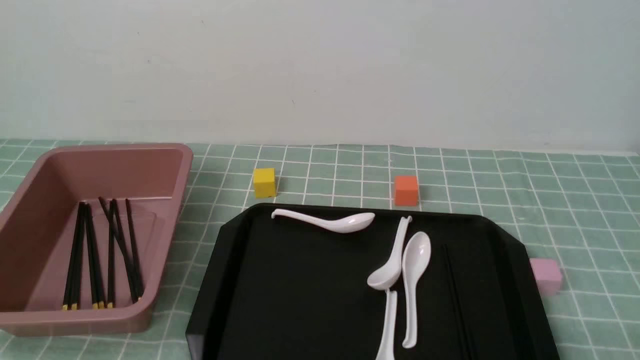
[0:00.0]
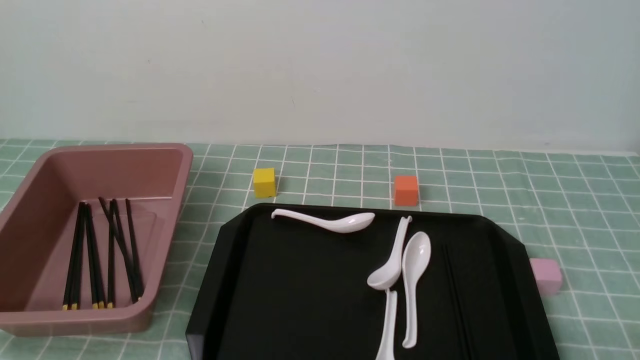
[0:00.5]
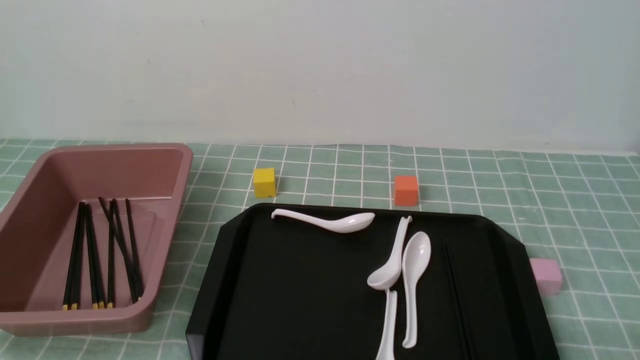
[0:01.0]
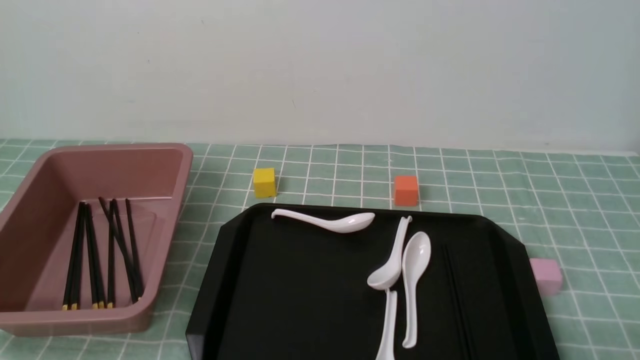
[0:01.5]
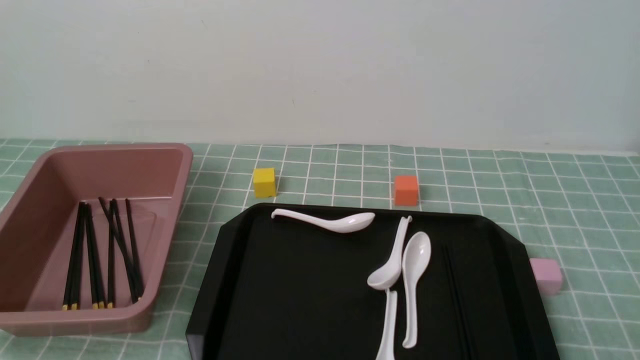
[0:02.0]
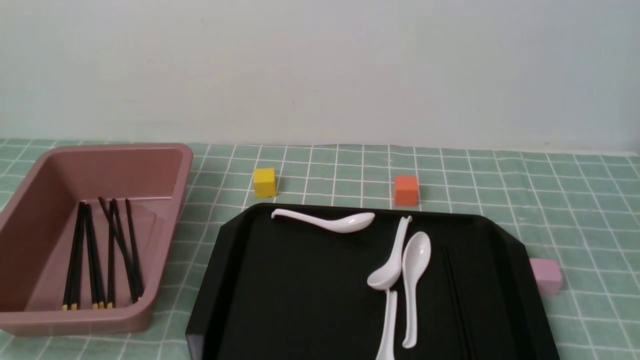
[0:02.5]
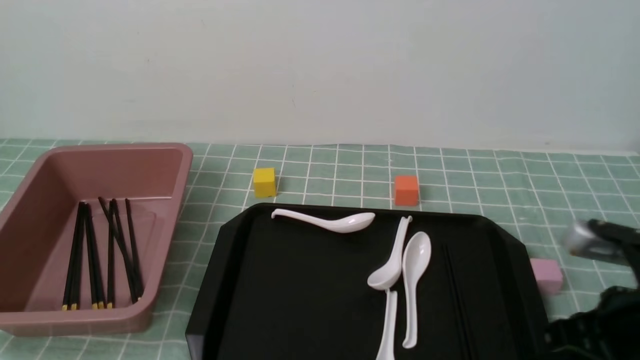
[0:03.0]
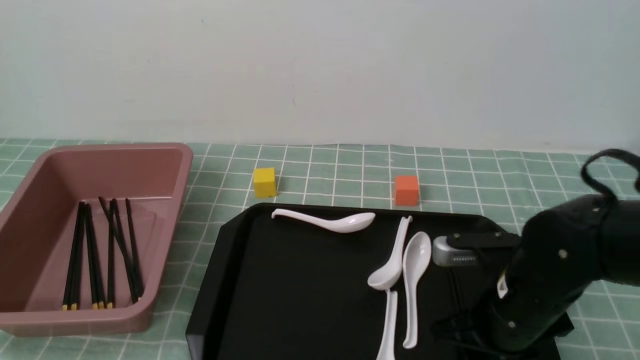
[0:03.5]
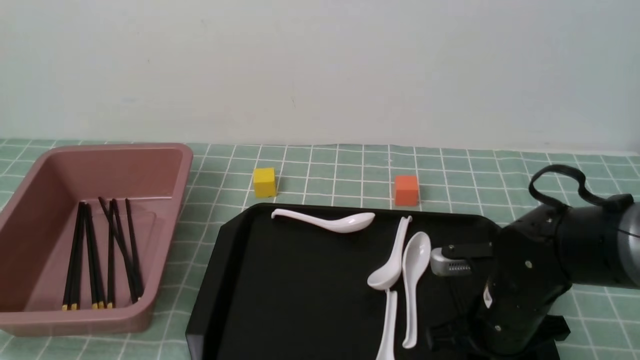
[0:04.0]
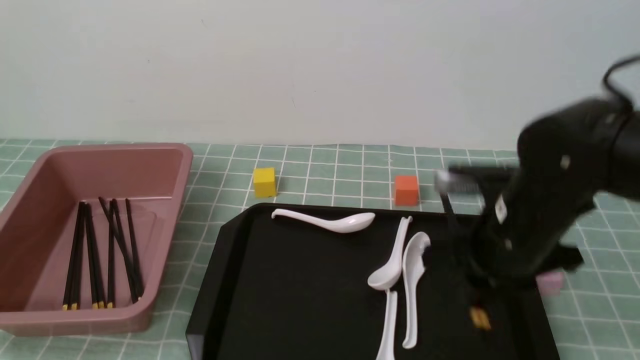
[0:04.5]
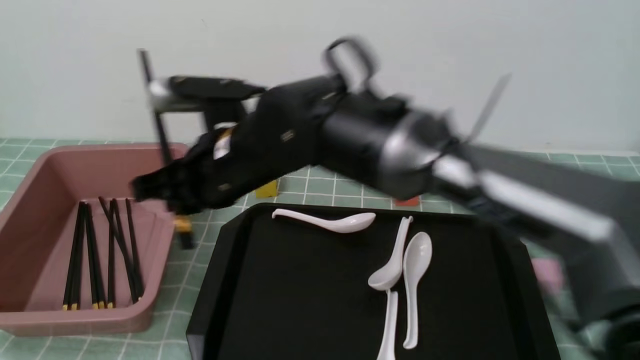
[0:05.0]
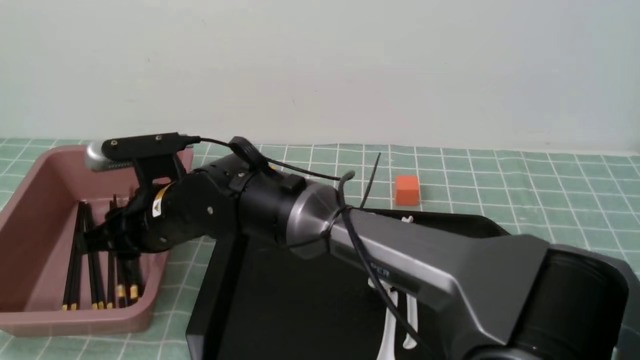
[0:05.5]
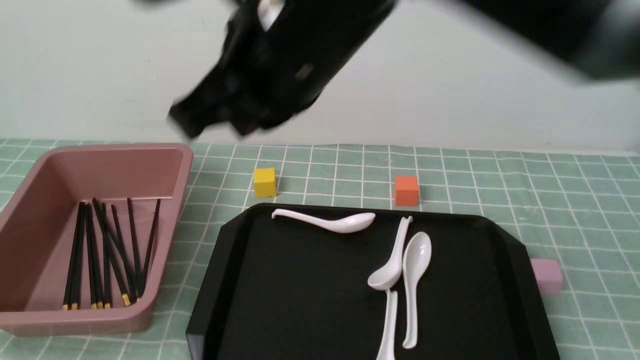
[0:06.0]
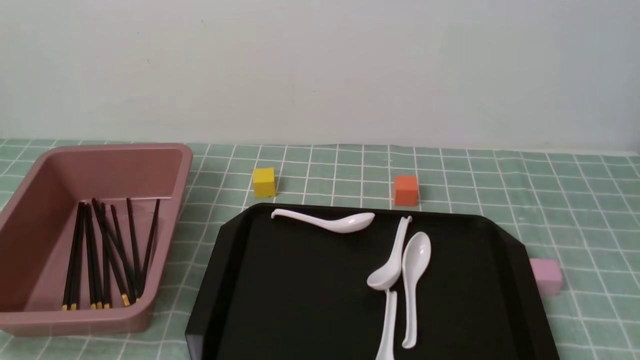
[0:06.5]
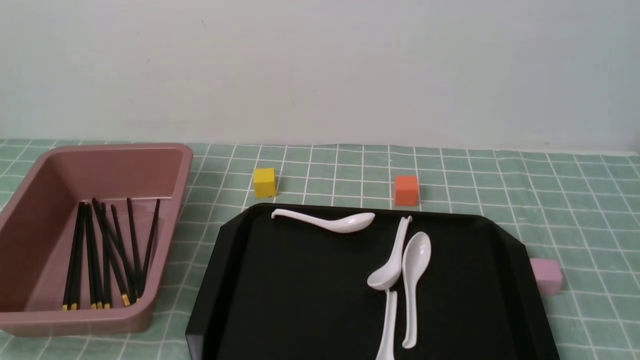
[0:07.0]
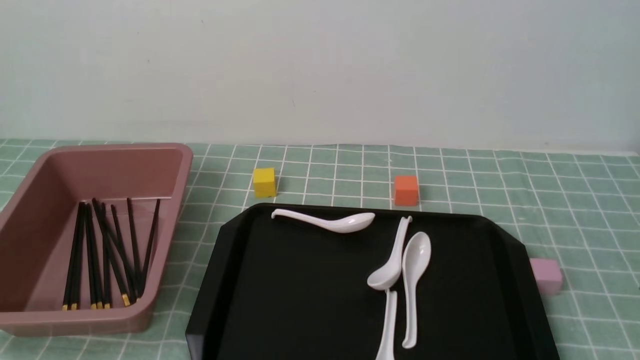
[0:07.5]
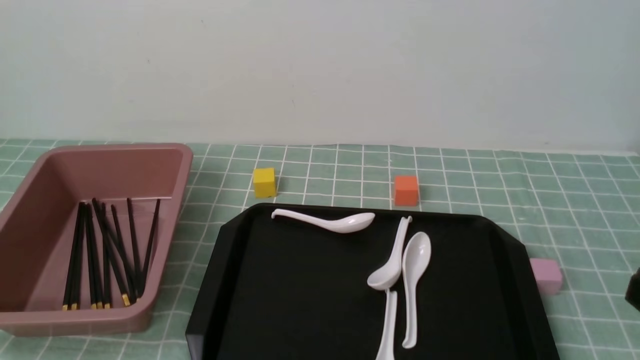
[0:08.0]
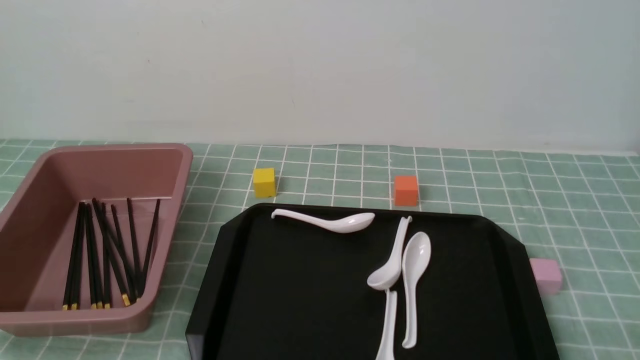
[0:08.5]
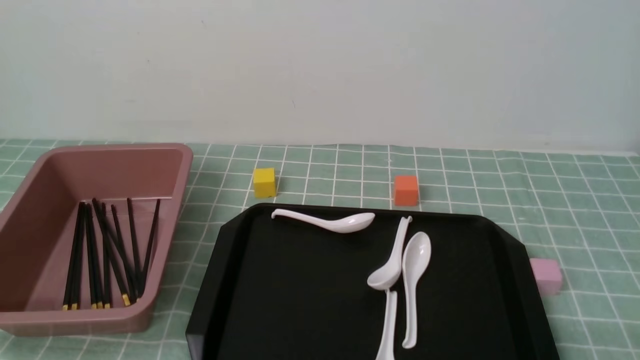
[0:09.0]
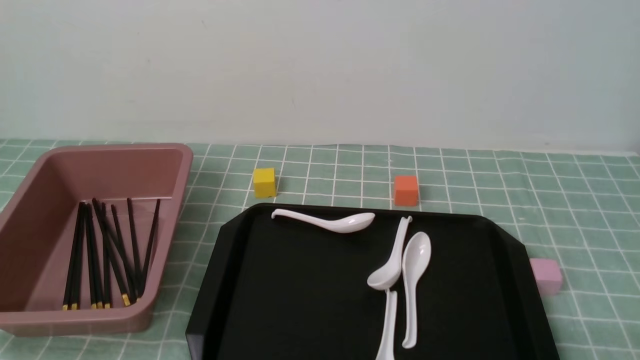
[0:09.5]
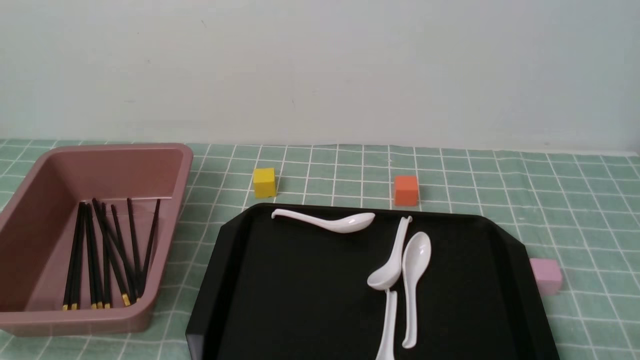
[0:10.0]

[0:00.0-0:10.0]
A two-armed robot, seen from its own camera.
Step, 0:00.0 to 0:04.5: use the right arm to grab a pair of chopsticks.
Step, 0:05.0 to 0:05.5: use the right arm to put the chopsticks into the lunch box.
0:02.0 to 0:04.0: The right gripper moves forward and to the left, roughly 25 cm, and closes, then opens again.
0:04.0 to 0:06.0: The right gripper moves up and down over some 30 cm, changing direction 2 times, and closes up.
0:06.0 to 0:08.0: The right gripper heads to the right, backward and downward, covering approximately 35 cm.

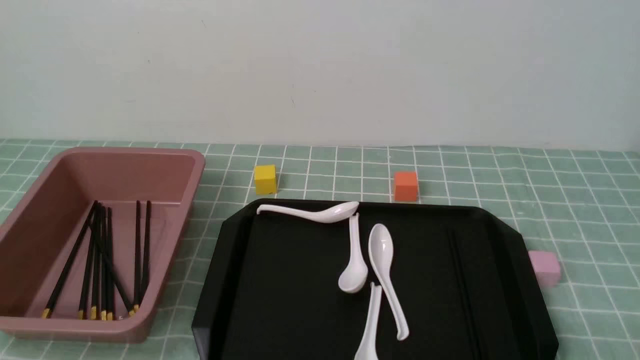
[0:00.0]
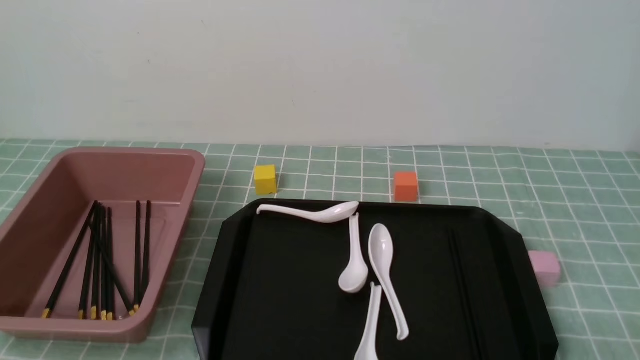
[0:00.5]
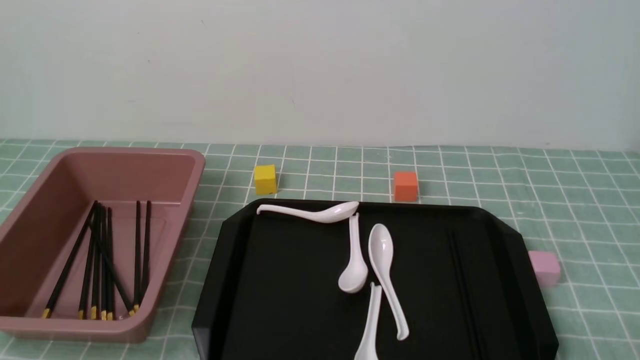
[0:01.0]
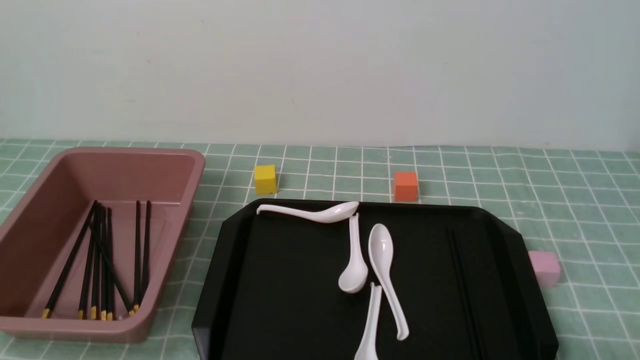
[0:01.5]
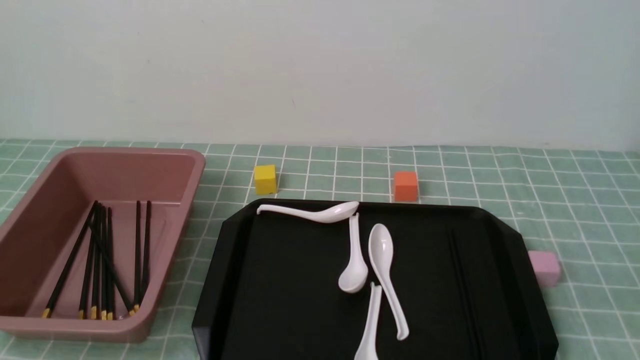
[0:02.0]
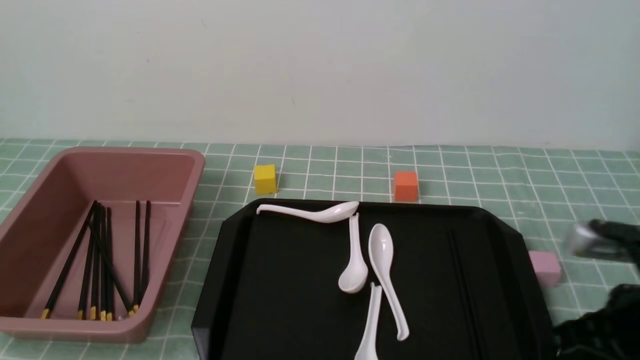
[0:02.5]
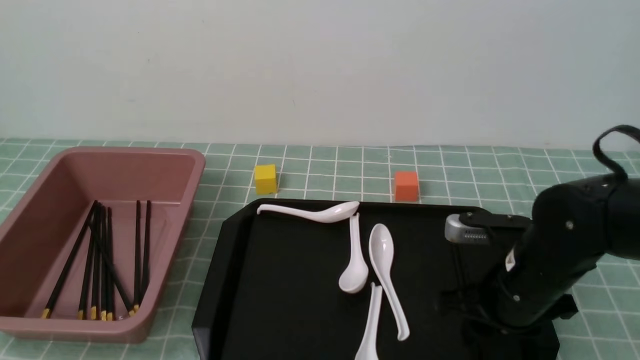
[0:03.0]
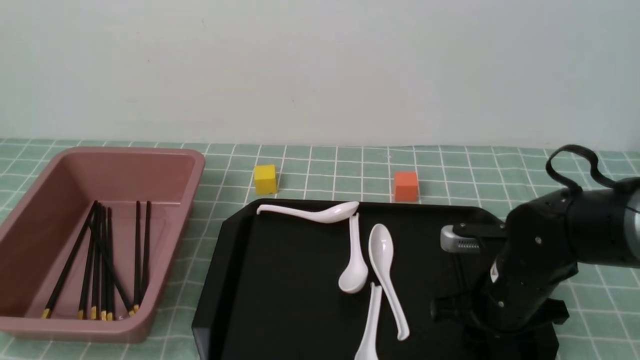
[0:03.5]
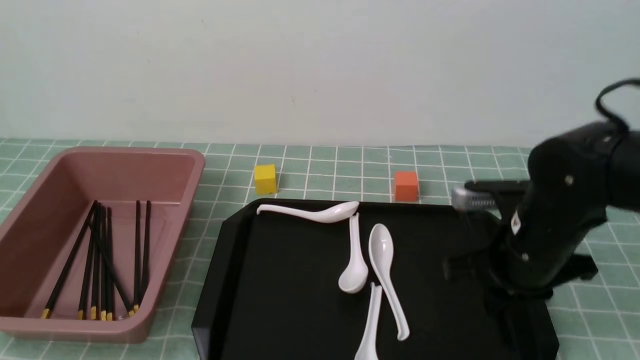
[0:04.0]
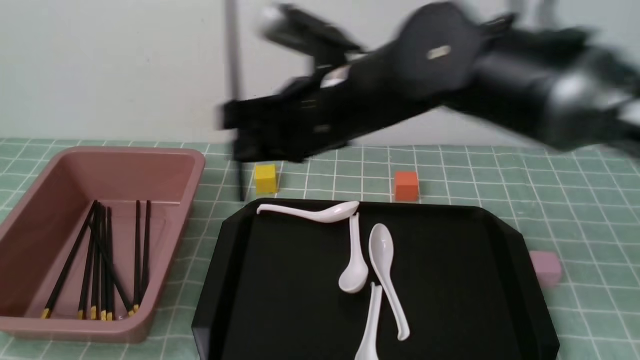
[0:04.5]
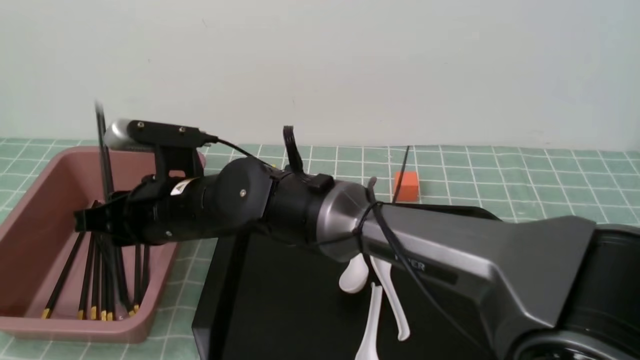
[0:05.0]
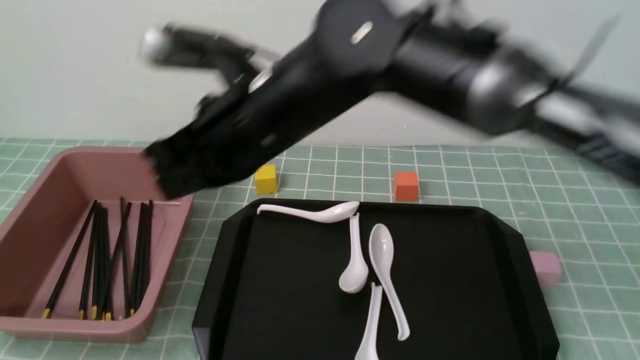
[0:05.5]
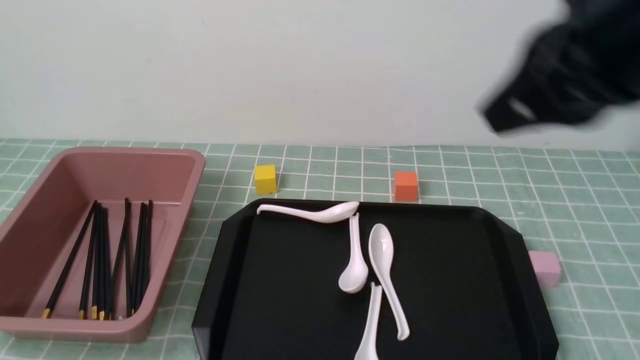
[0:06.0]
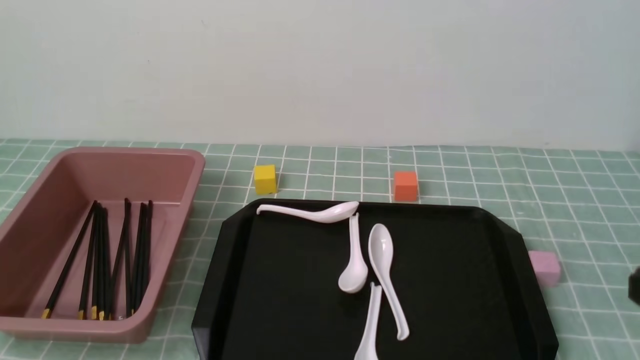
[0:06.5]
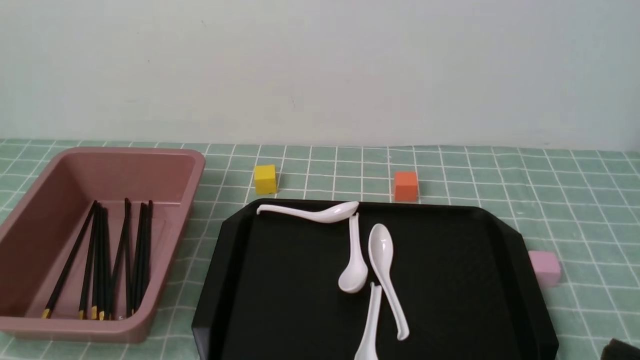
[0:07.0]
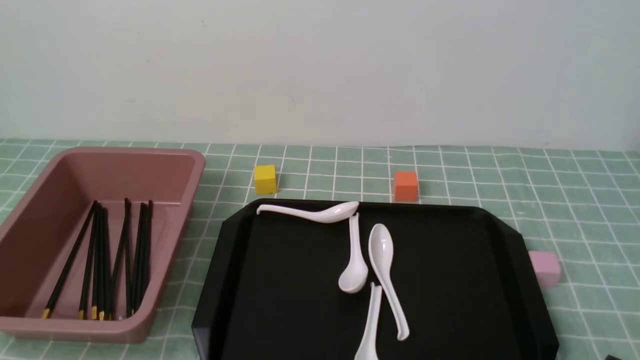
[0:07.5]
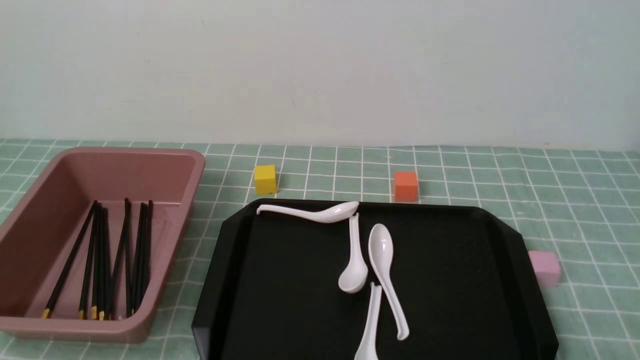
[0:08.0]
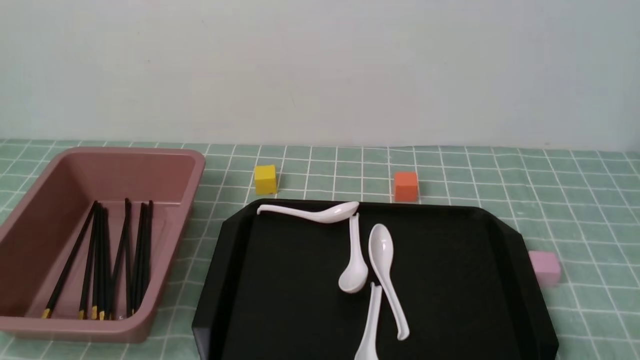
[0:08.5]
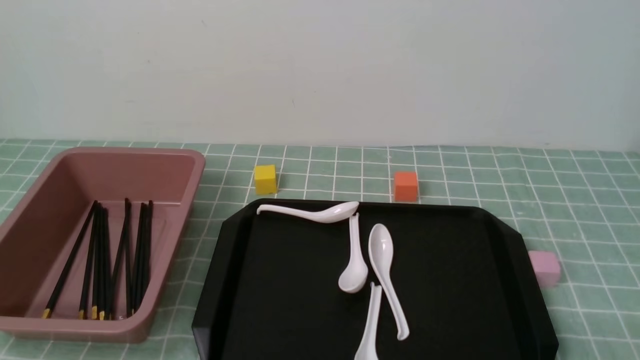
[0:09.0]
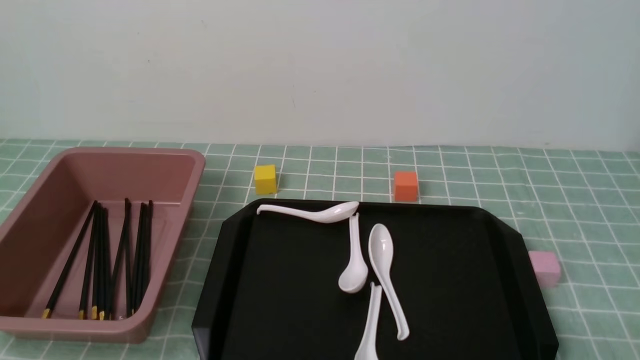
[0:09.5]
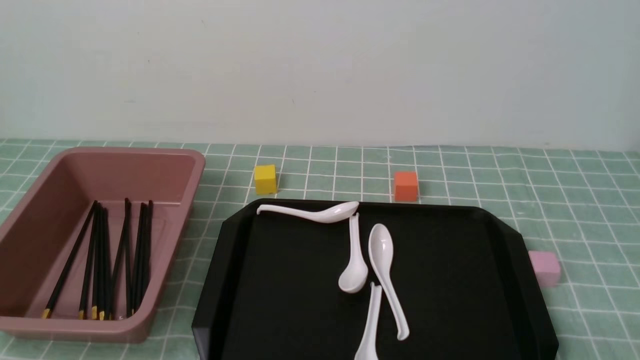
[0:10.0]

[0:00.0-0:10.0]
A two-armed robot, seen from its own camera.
Step, 0:00.0 to 0:04.0: use the right arm to grab a pair of chopsticks.
Step, 0:04.5 to 0:05.0: use the right arm to put the chopsticks into the lunch box.
0:02.0 to 0:04.0: The right gripper travels forward and to the left by roughly 25 cm, and opens, then closes once more.
0:04.0 to 0:06.0: The right gripper moves upward and backward, some 25 cm, reaches approximately 30 cm to the left, then returns, and closes up.
0:06.0 to 0:08.0: The right gripper heads downward, to the right and backward, covering about 30 cm.
